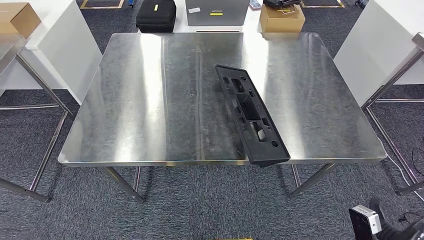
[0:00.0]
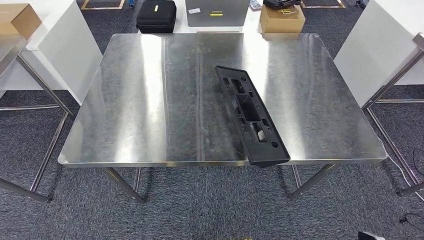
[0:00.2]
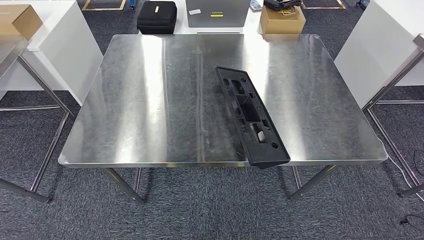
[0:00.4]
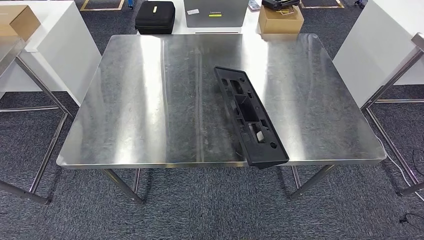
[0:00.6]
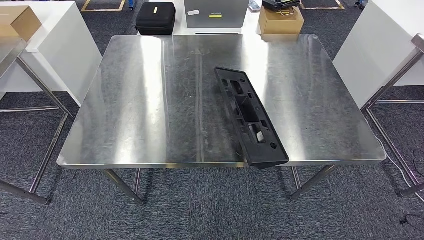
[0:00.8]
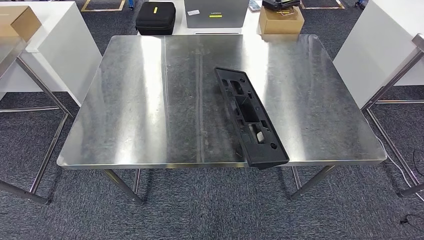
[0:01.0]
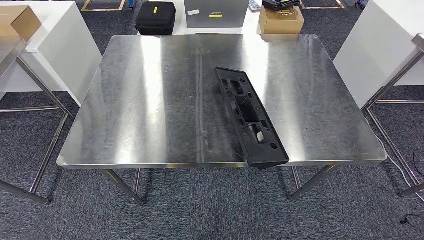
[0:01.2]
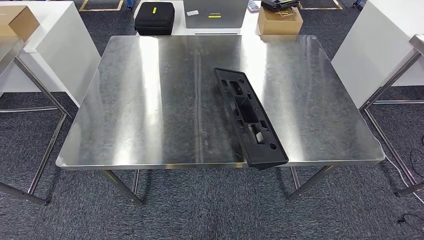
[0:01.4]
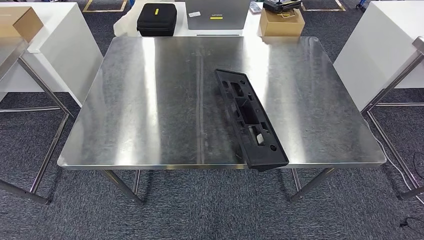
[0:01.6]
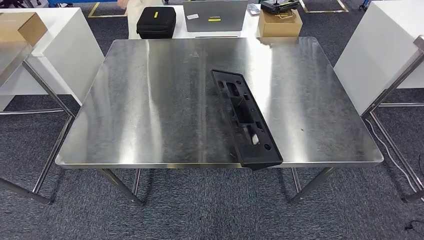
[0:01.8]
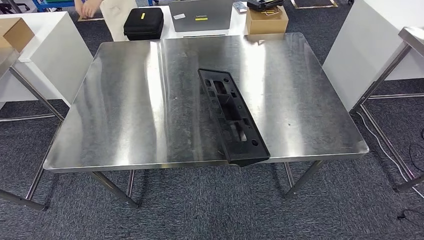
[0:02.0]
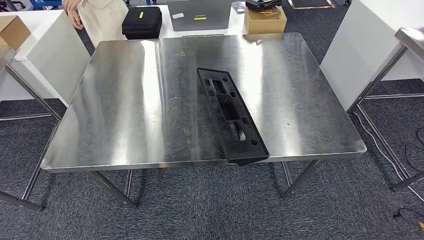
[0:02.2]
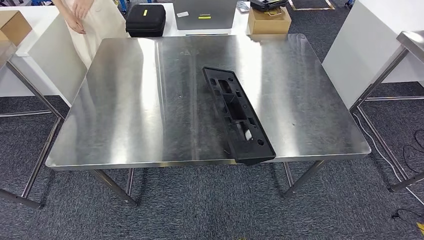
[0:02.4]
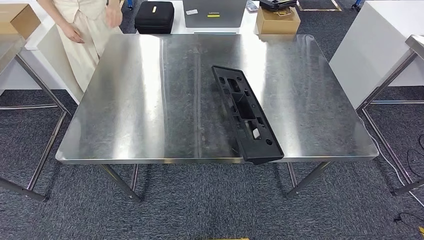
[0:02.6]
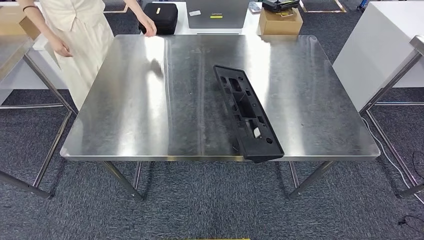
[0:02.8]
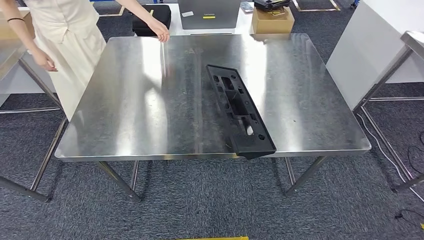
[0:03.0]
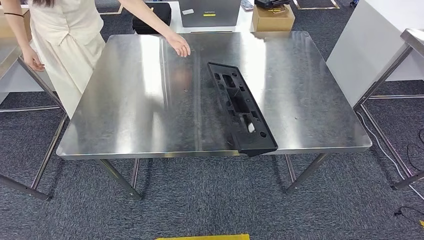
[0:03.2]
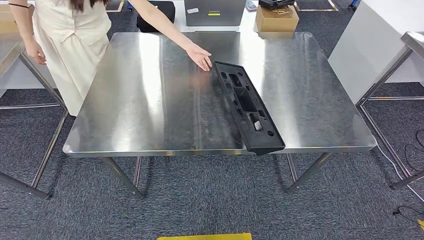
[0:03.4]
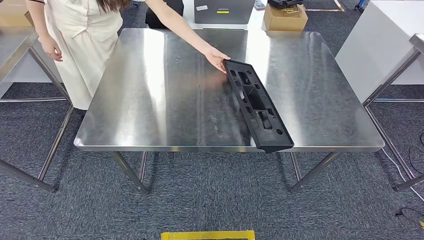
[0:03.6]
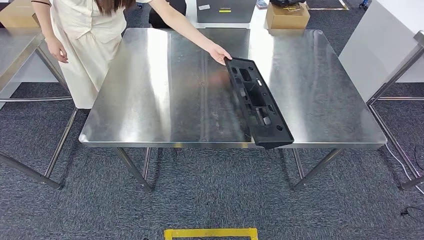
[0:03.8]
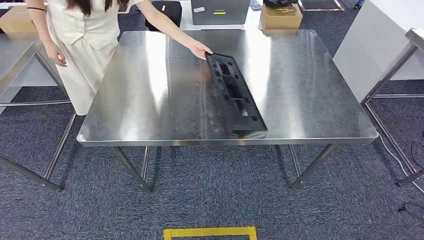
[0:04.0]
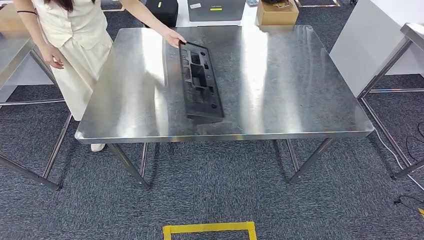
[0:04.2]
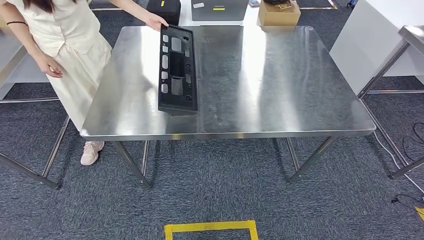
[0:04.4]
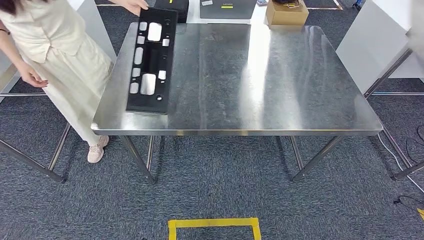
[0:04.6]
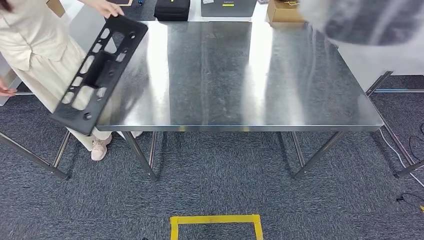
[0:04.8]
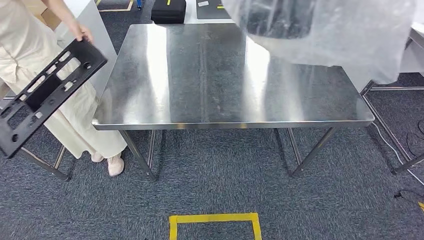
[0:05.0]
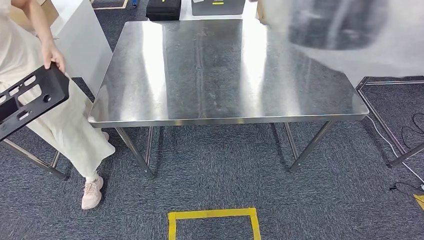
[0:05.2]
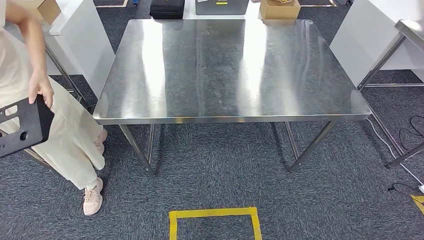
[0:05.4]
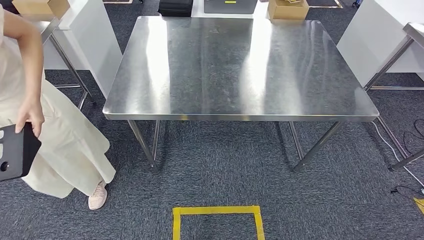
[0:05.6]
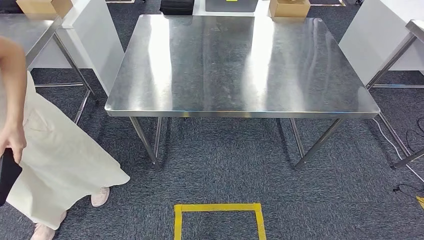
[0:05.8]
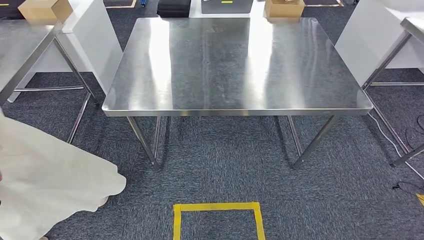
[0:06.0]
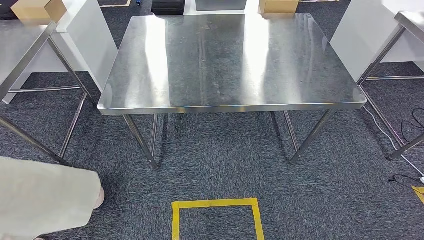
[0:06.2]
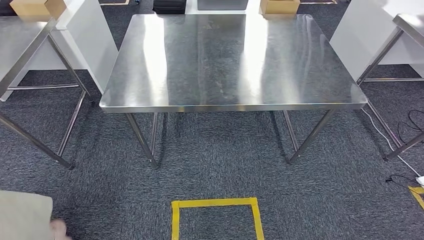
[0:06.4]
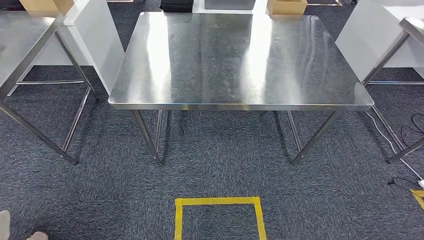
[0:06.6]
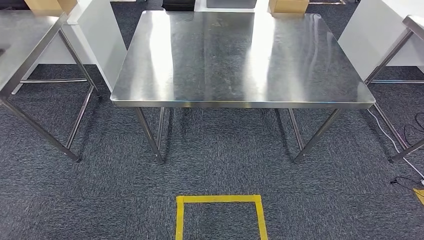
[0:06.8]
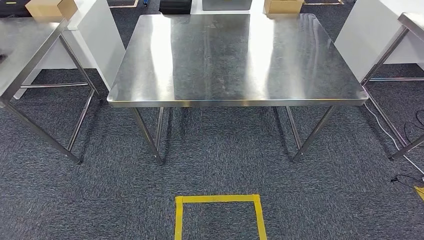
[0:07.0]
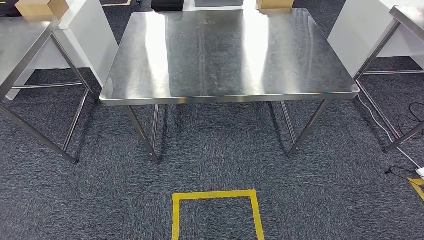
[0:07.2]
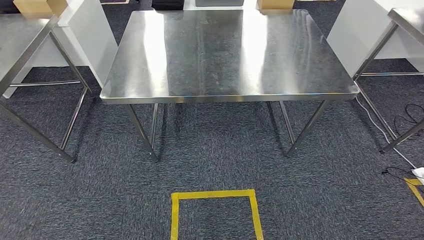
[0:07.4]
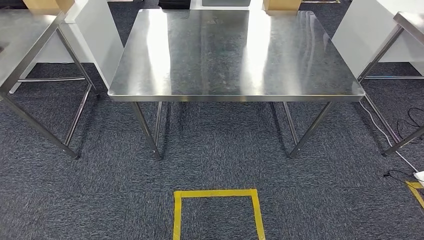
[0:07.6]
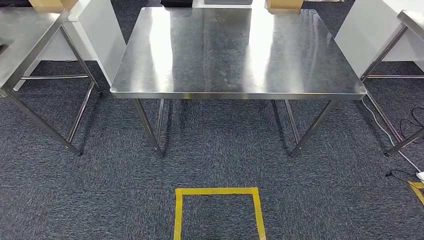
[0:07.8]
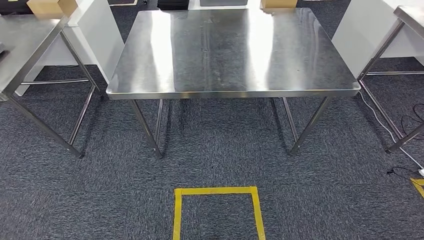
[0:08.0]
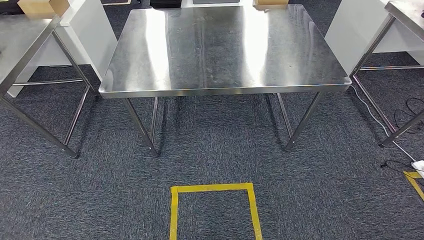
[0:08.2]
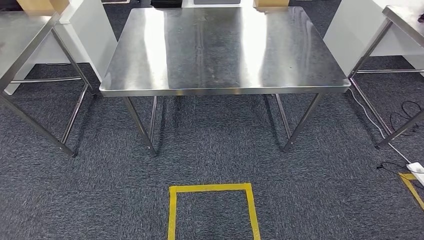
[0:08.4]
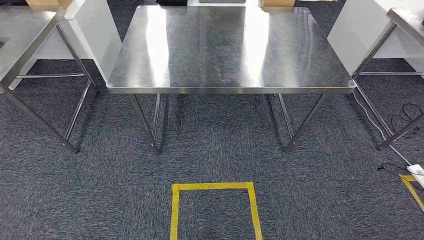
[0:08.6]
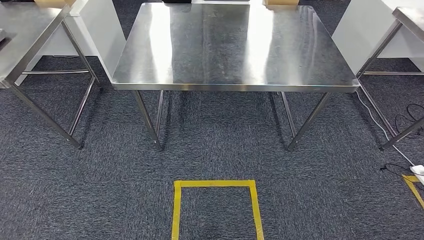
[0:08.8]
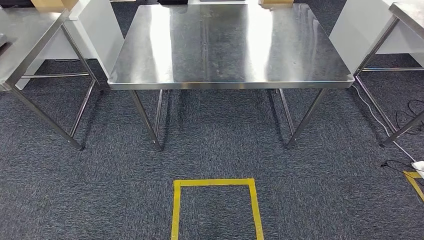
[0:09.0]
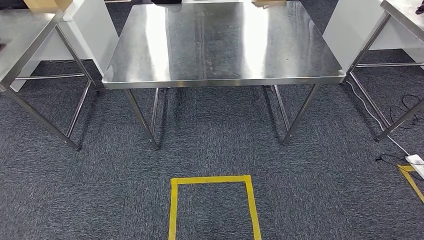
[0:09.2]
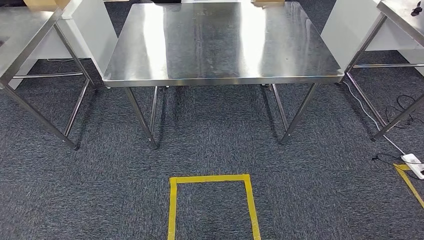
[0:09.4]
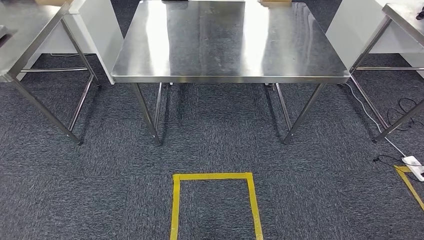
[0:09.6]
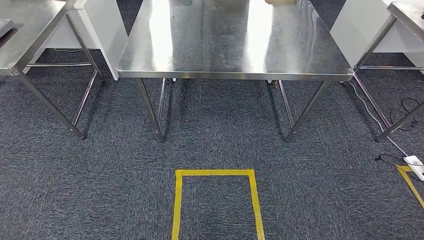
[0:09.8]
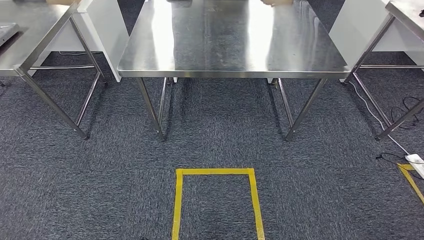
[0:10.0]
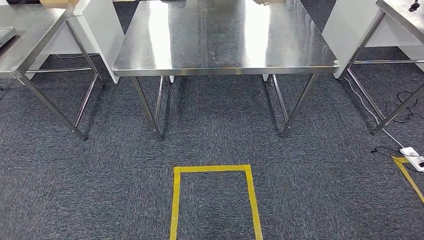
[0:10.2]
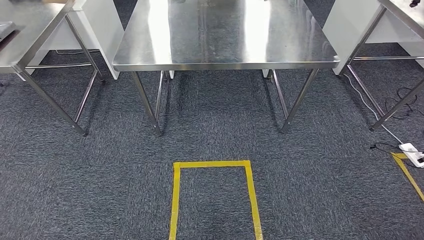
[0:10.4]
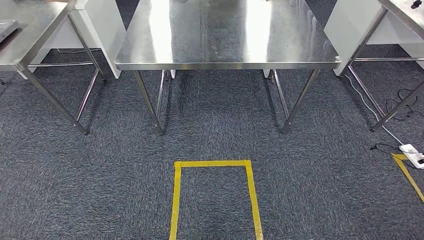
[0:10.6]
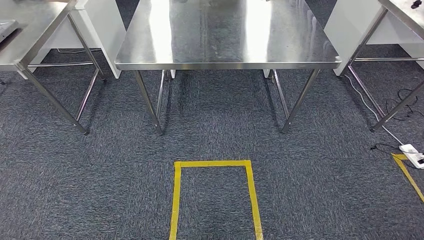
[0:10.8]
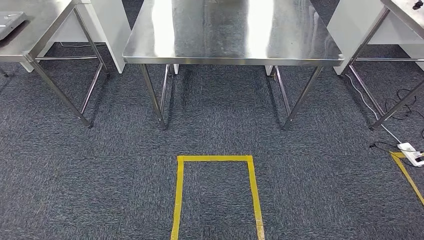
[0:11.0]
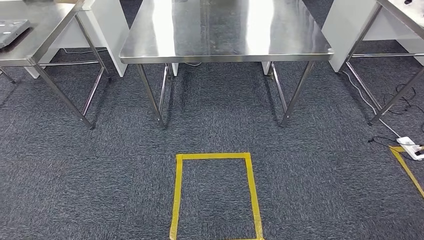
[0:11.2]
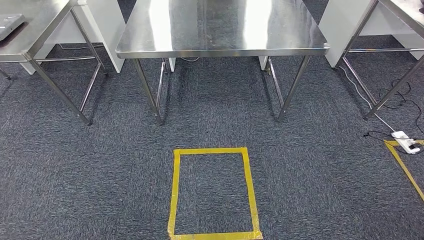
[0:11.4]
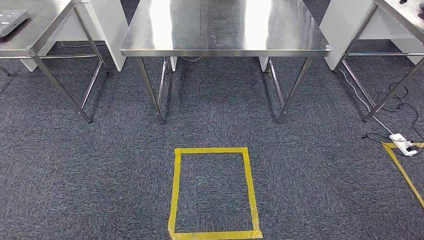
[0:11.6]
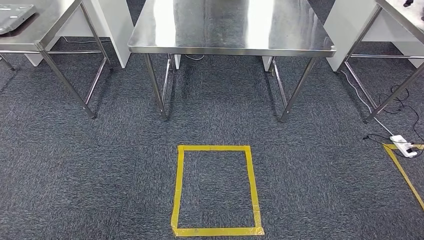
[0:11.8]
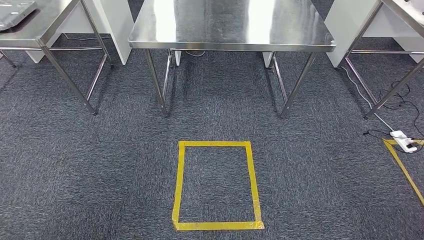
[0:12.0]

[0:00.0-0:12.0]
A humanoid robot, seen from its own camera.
0:07.6 to 0:09.0: Both hands stay about where they are.

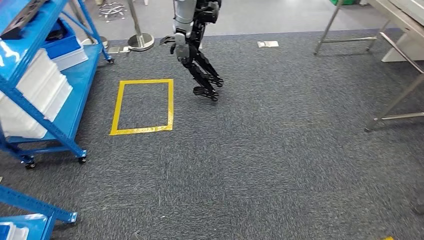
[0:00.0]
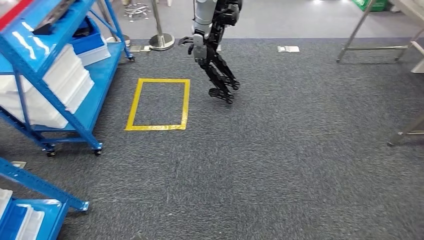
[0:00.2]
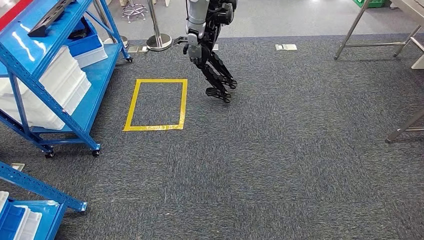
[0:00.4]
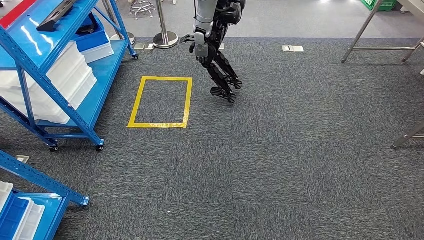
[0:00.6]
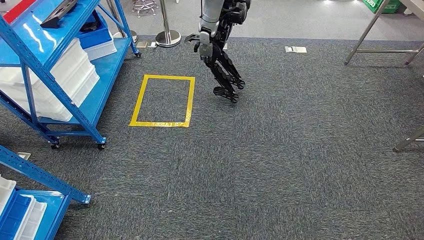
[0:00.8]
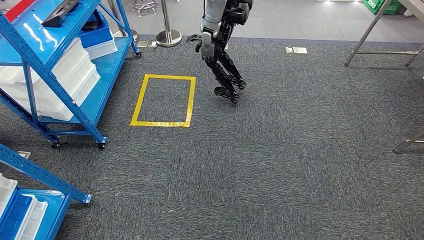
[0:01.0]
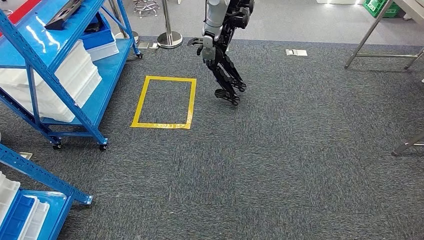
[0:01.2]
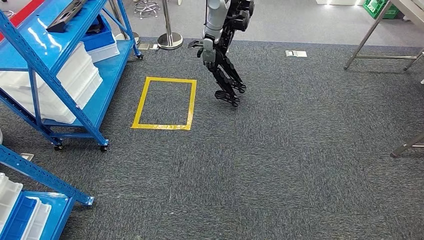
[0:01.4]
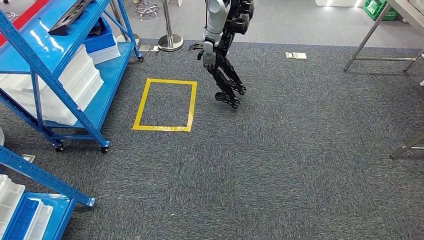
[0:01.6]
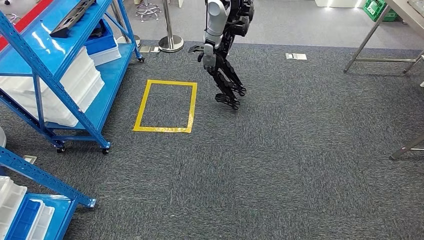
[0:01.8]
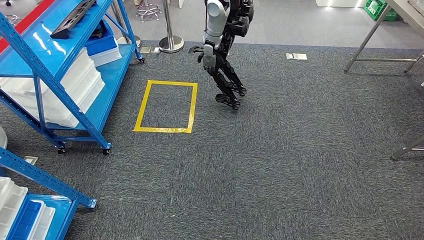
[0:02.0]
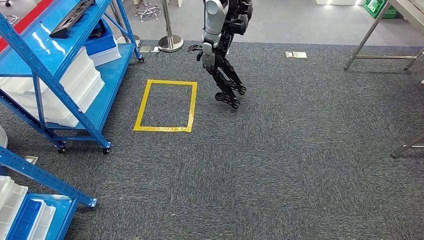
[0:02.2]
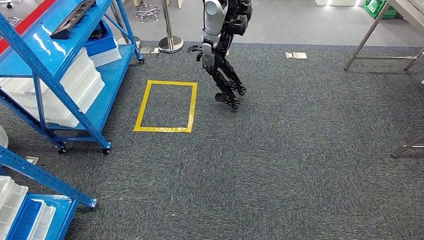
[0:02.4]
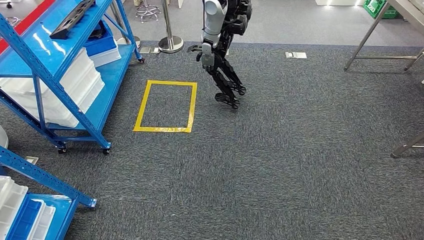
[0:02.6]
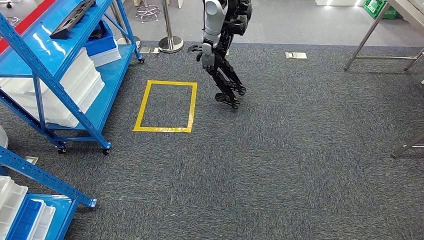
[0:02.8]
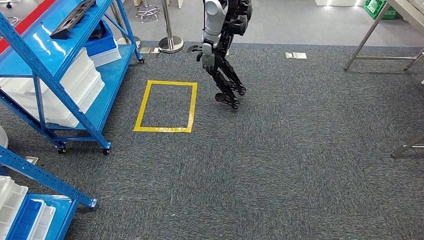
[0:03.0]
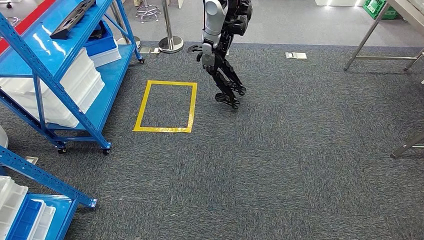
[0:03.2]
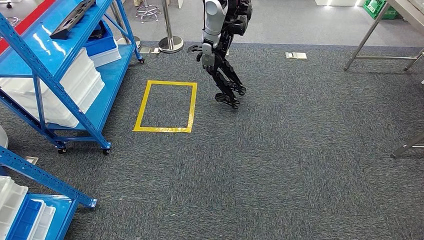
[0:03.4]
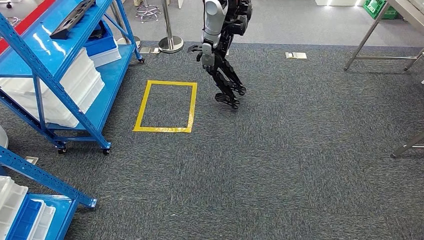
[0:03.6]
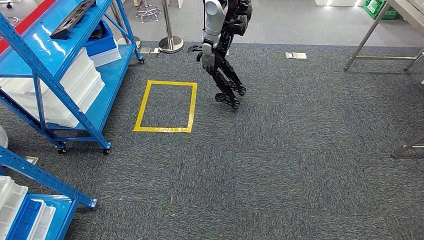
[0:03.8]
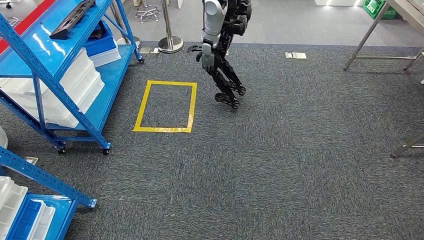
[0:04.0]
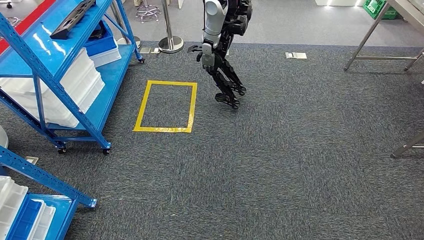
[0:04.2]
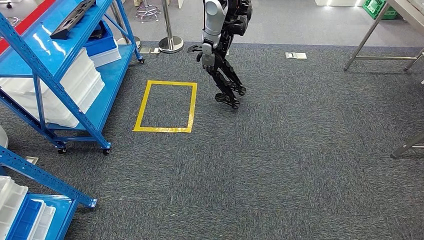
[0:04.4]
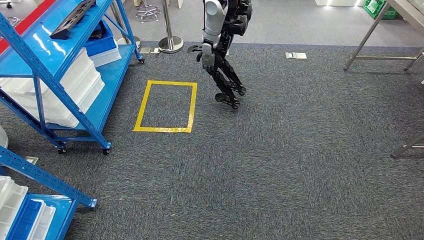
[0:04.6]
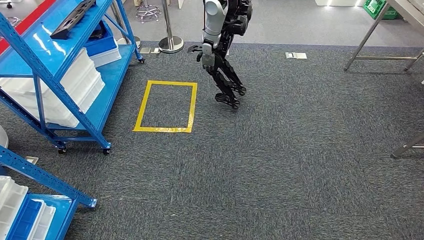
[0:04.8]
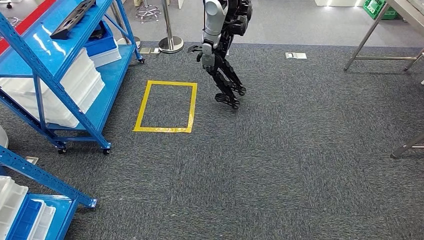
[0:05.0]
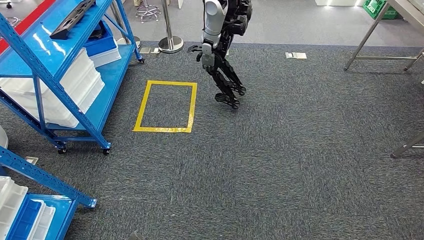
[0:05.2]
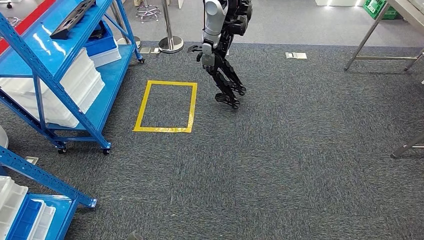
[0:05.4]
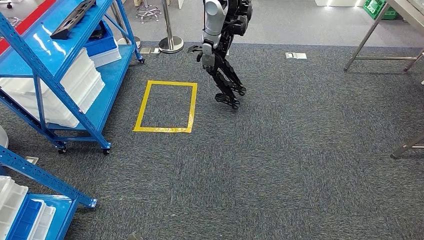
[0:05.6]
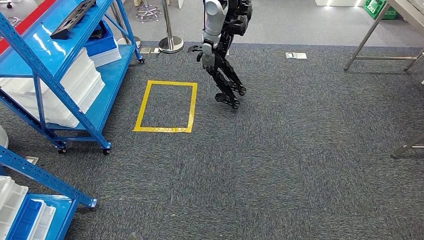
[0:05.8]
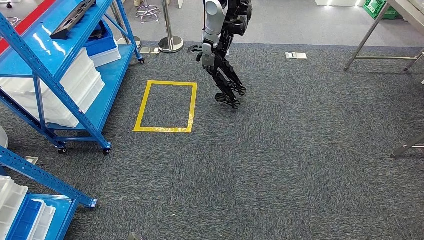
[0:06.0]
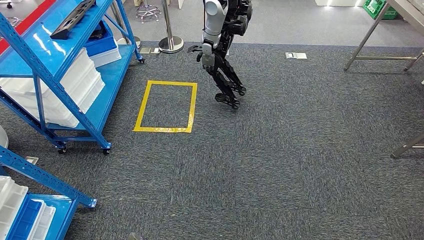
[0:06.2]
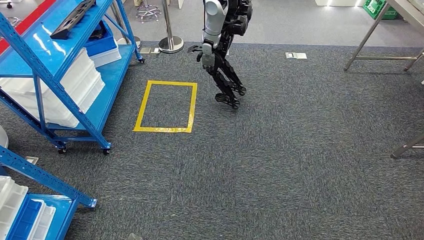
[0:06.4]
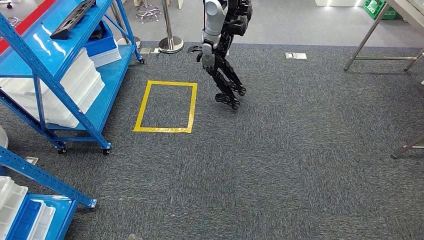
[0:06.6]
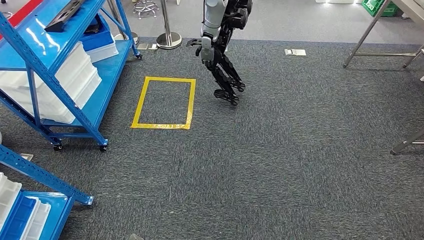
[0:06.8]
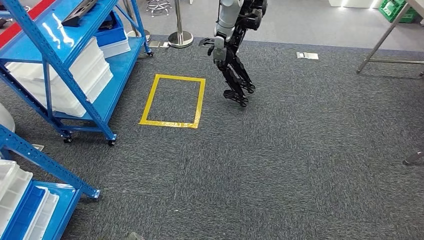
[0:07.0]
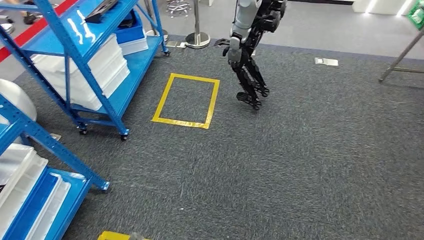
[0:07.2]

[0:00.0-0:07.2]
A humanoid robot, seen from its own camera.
0:01.4 to 0:02.8: The two hands keep their place.
